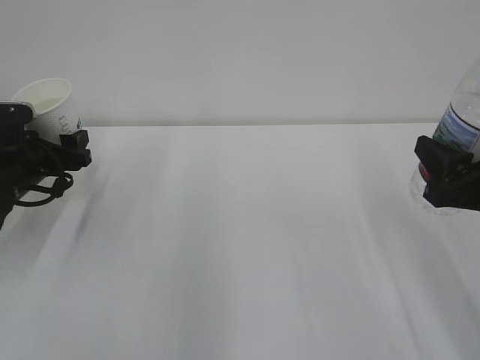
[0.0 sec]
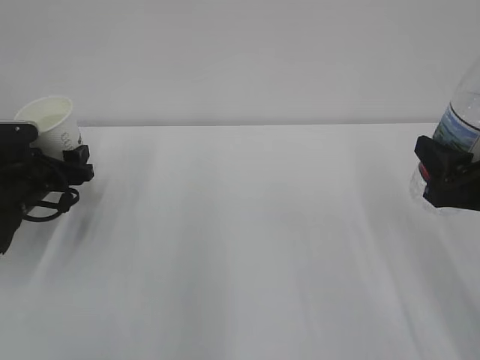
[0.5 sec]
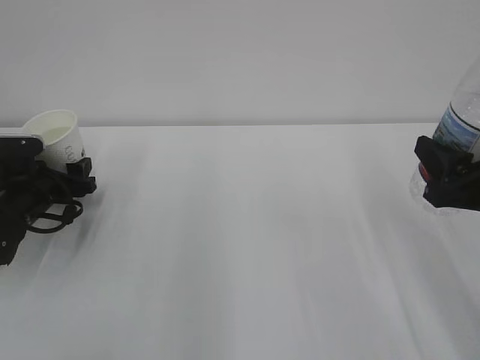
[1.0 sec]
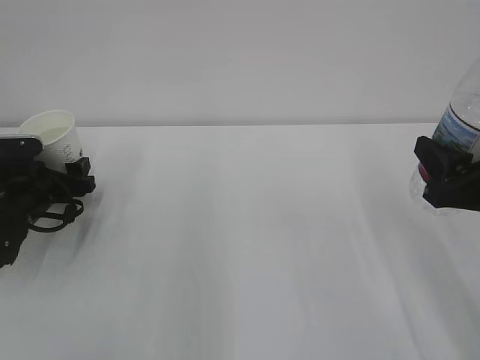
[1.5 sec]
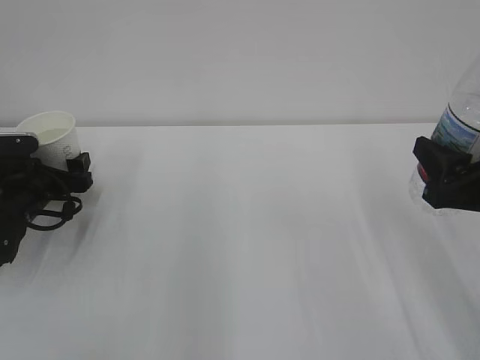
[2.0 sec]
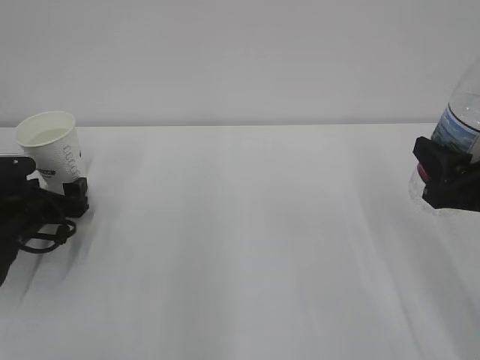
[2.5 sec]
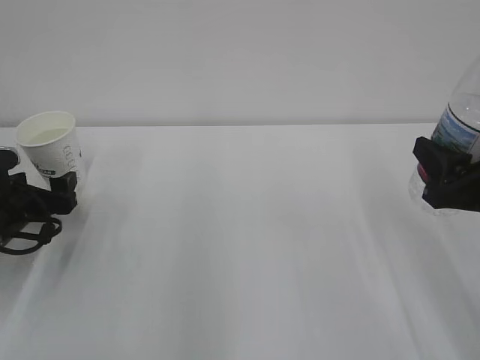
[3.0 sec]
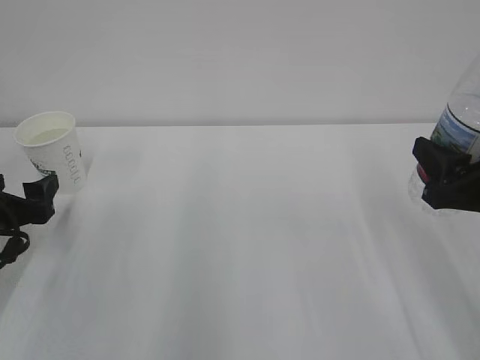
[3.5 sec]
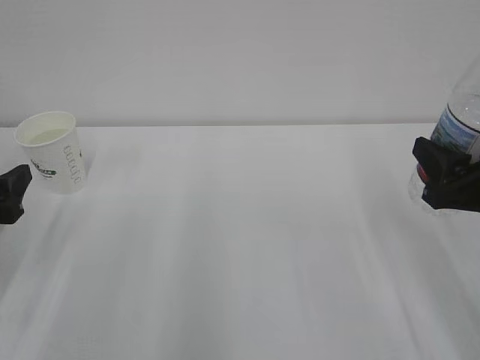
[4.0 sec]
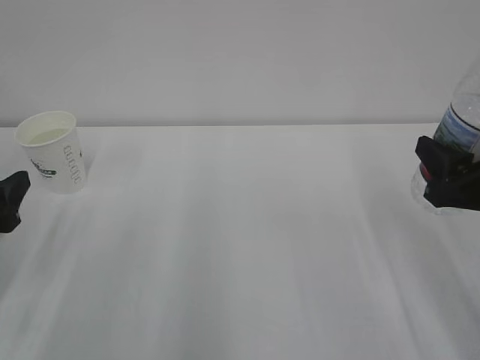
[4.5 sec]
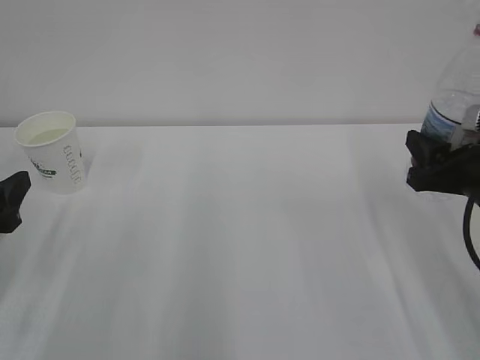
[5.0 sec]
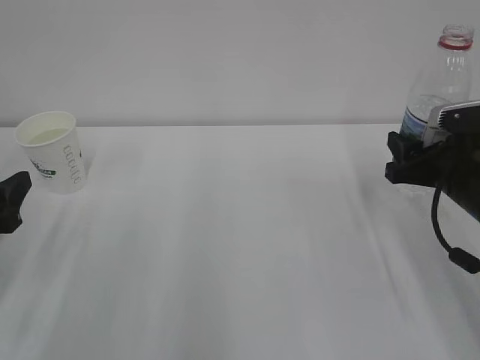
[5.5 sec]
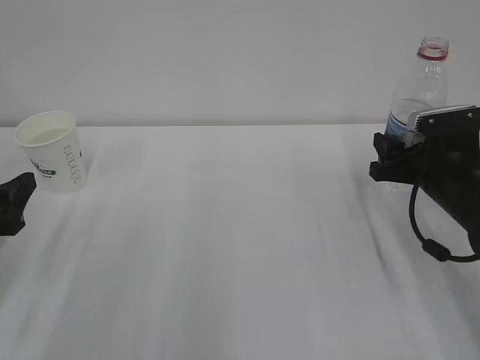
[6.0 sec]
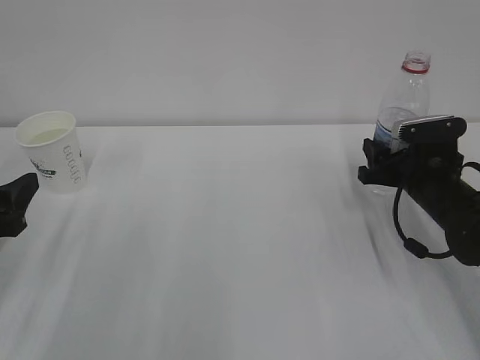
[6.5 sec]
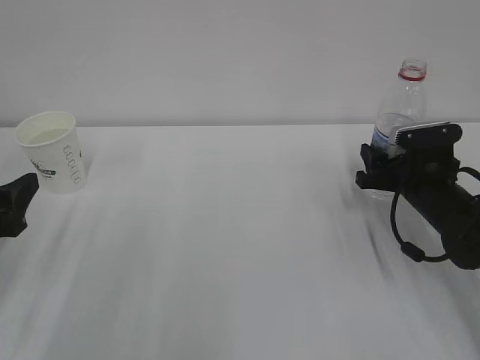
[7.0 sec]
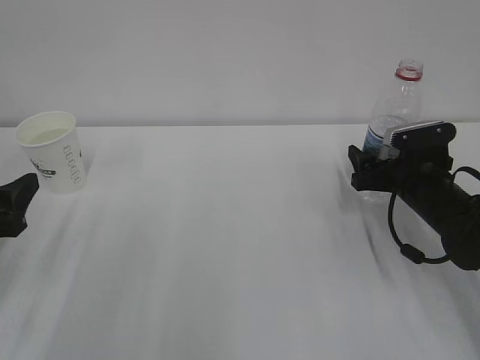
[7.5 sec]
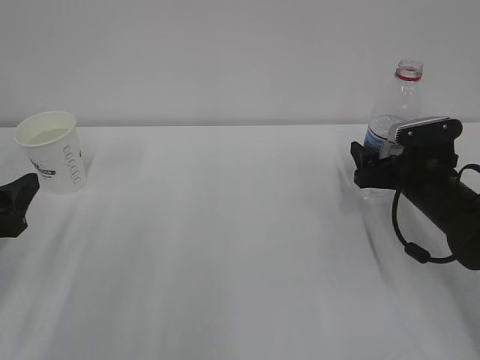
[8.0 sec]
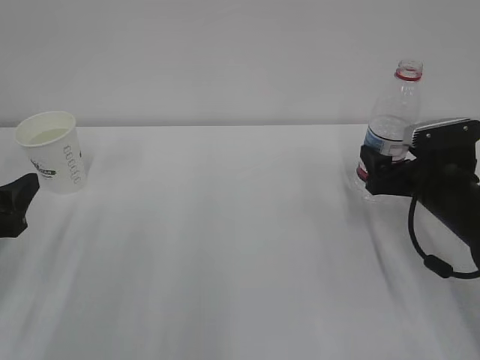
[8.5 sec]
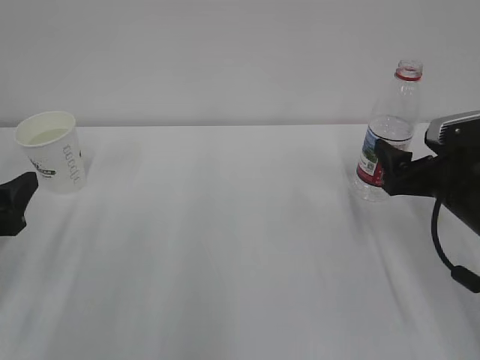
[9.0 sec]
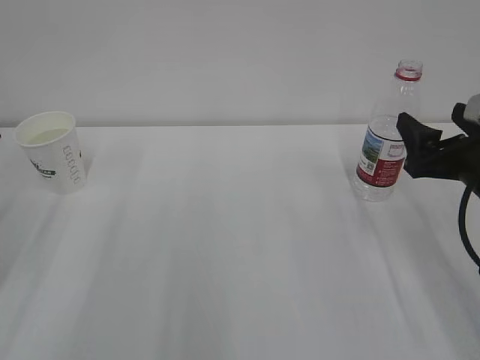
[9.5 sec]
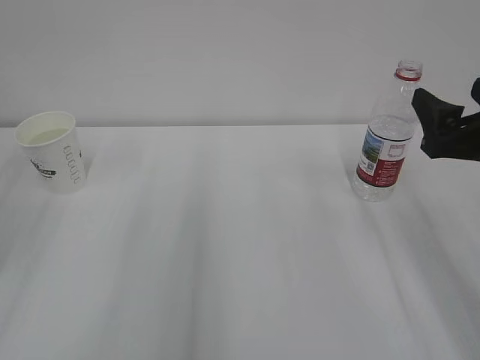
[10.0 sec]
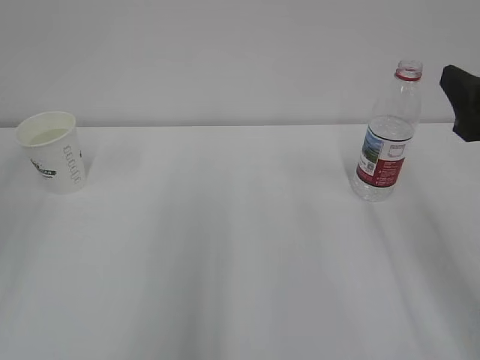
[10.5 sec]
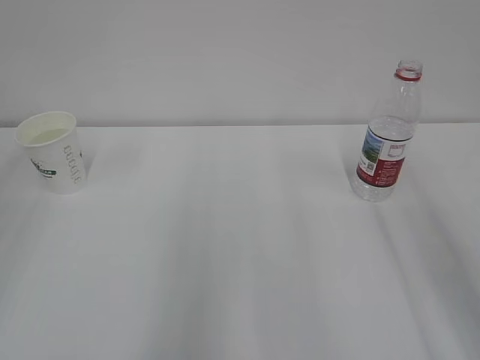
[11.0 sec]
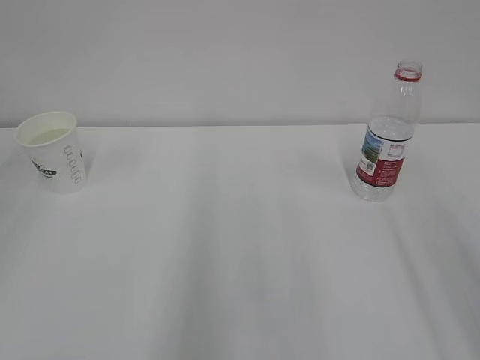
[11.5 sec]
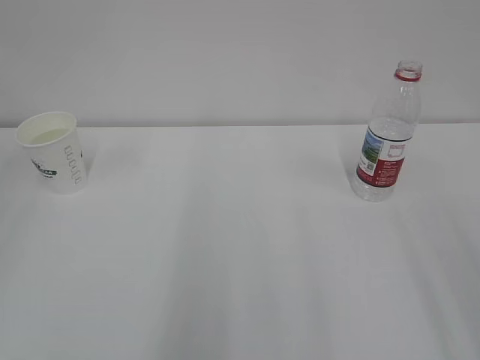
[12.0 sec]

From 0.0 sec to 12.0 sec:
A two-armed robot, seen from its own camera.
From 0.0 sec to 2.0 sec: The left gripper opens up.
From 2.0 sec to 4.0 sec: The left gripper is displaced backward and upward by some 15 cm.
From 4.0 sec to 6.0 sec: The right gripper is displaced forward and downward by some 15 cm.
From 6.0 sec to 8.0 sec: The right gripper opens its fingers.
From 8.0 sec to 10.0 sec: The left gripper shifts some 10 cm upward, while the right gripper is displaced upward and backward by about 15 cm.
From 10.0 sec to 12.0 sec: The right gripper heads backward and upward, covering roughly 20 cm.

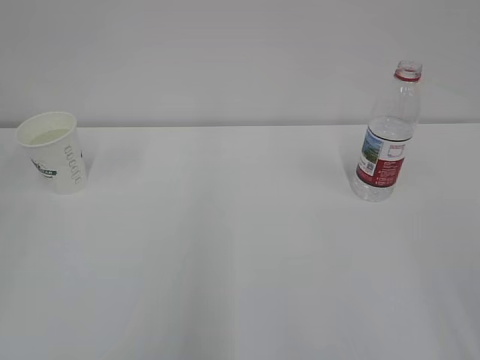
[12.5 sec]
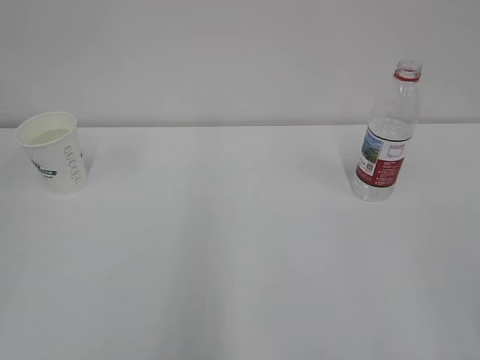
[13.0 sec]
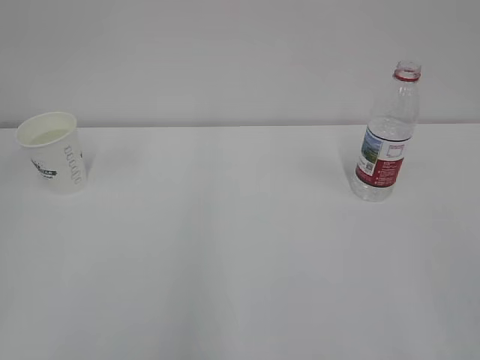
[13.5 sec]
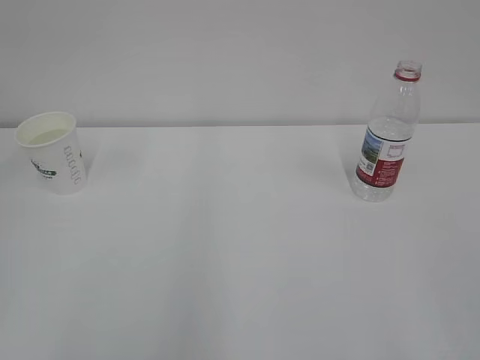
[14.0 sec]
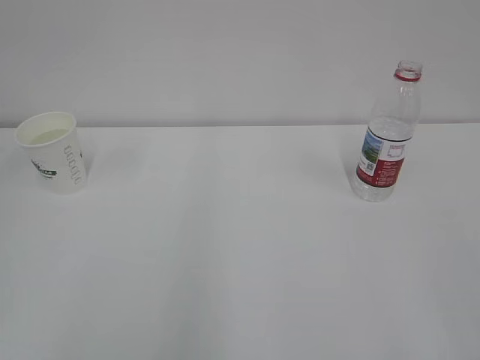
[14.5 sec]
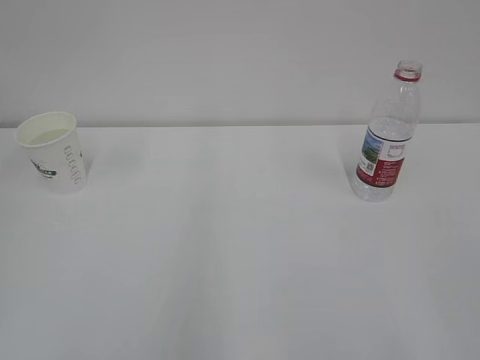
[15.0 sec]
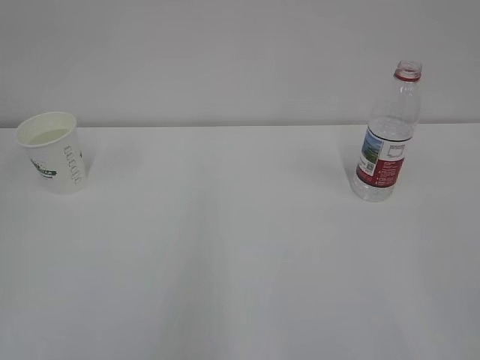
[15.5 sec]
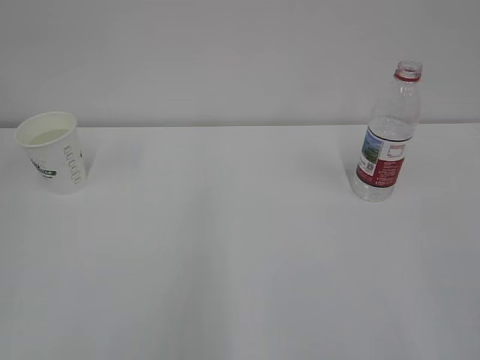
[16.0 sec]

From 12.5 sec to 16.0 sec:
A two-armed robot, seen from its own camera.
From 14.5 sec to 16.0 sec: Both grippers stay about where they are.
